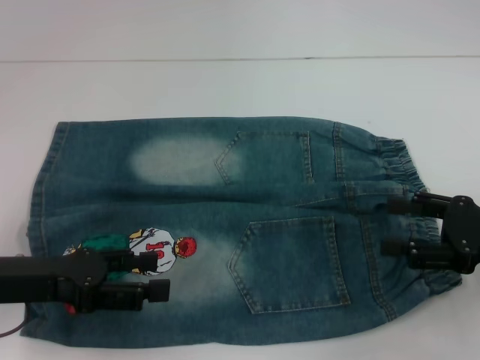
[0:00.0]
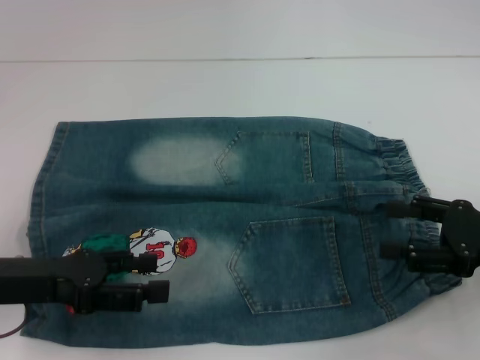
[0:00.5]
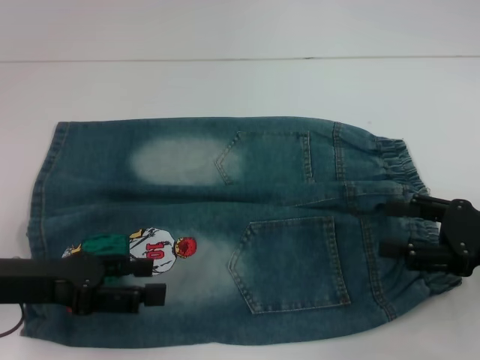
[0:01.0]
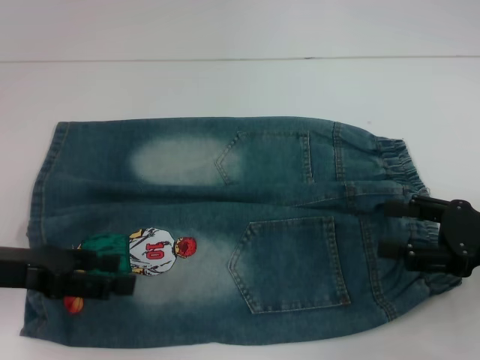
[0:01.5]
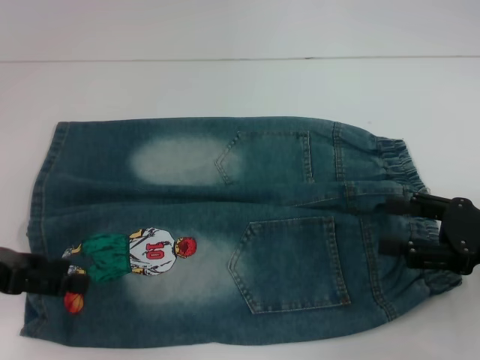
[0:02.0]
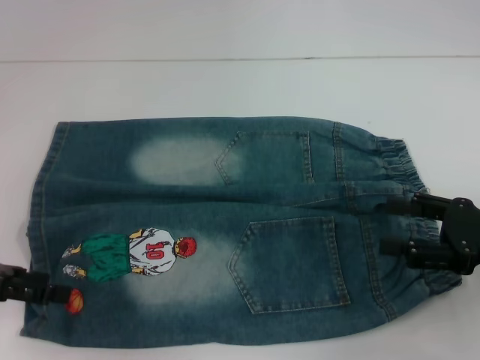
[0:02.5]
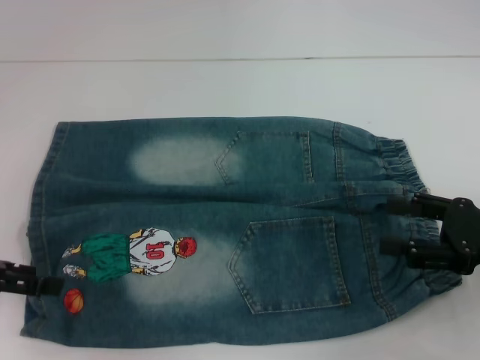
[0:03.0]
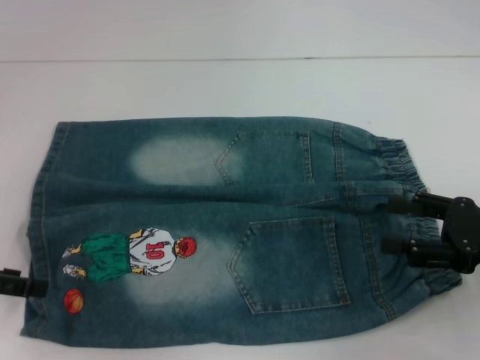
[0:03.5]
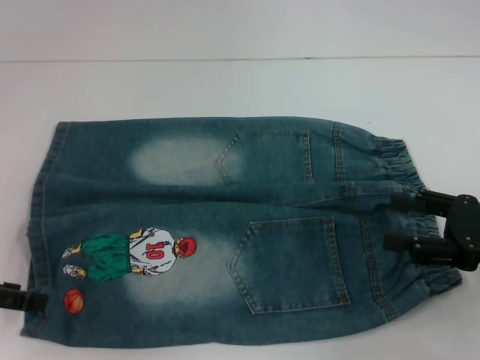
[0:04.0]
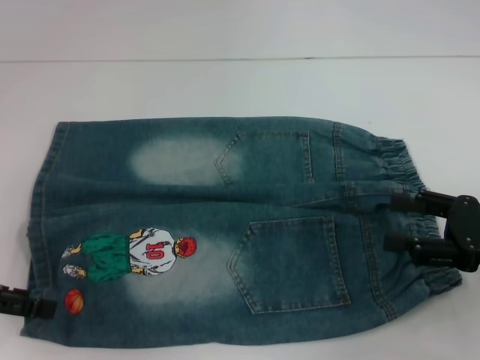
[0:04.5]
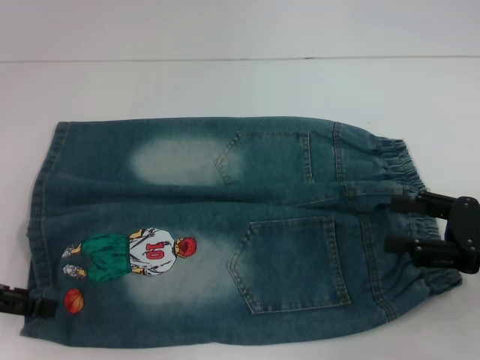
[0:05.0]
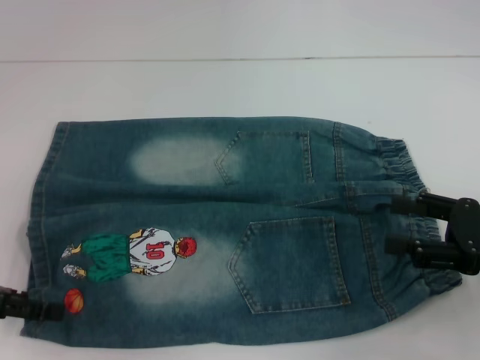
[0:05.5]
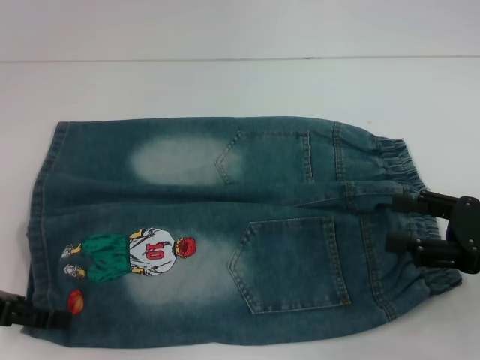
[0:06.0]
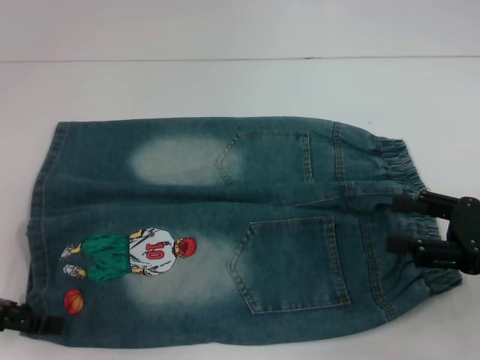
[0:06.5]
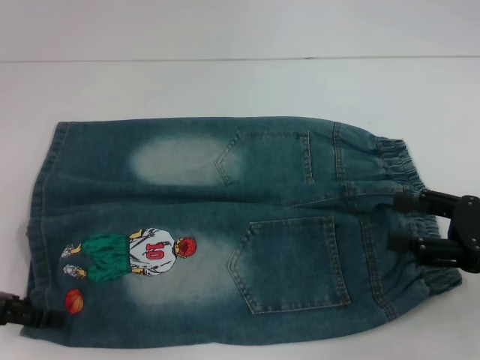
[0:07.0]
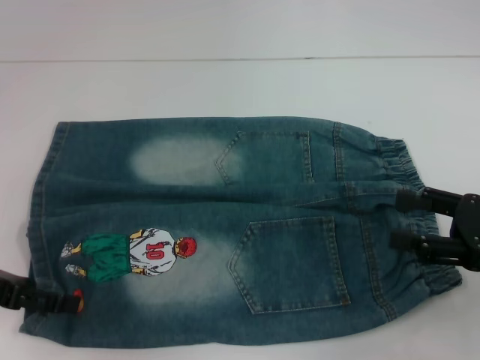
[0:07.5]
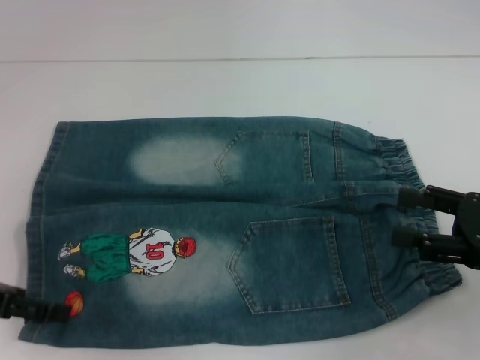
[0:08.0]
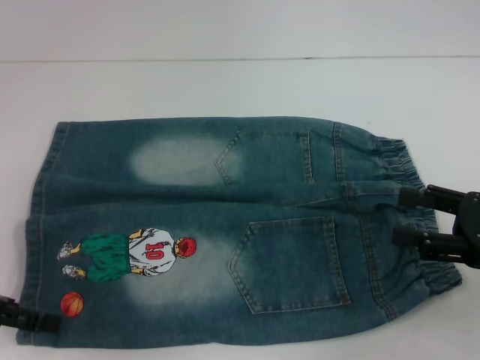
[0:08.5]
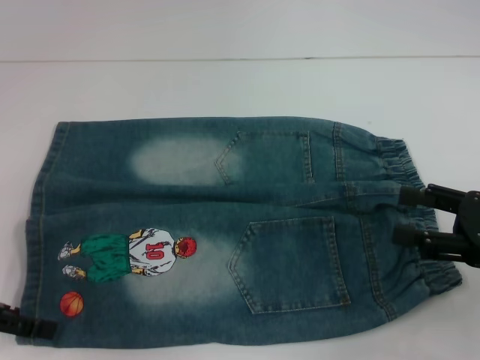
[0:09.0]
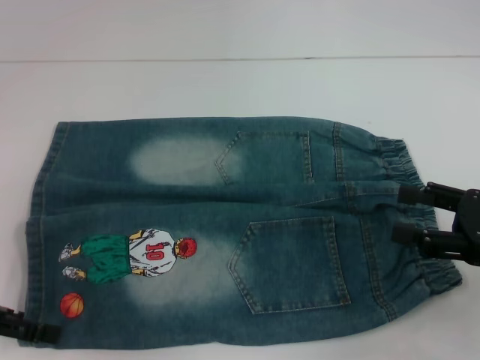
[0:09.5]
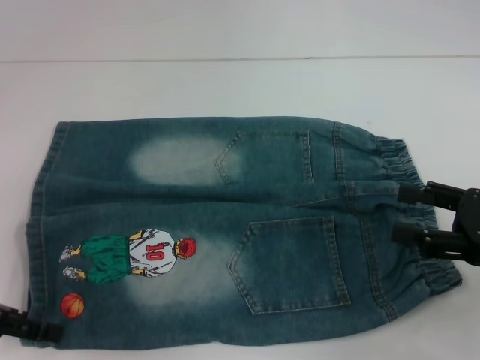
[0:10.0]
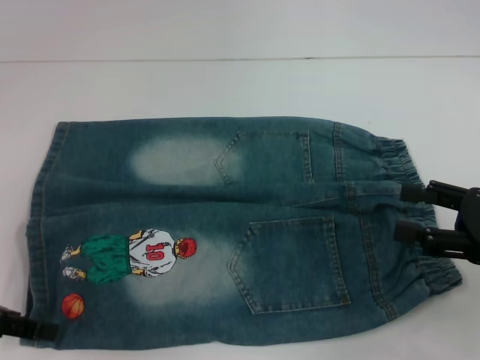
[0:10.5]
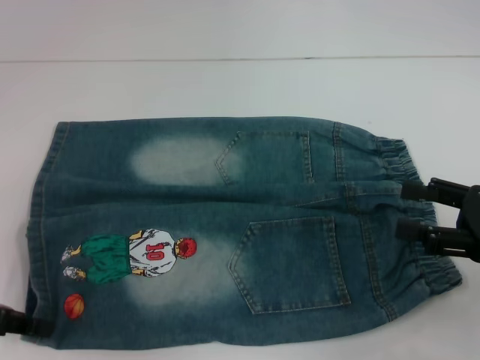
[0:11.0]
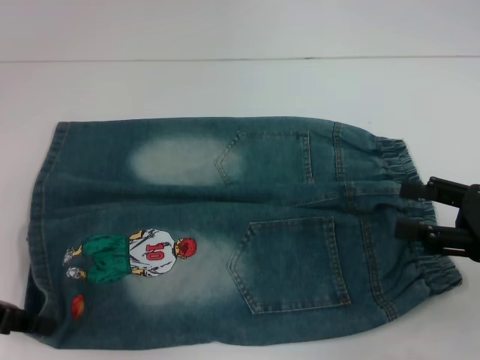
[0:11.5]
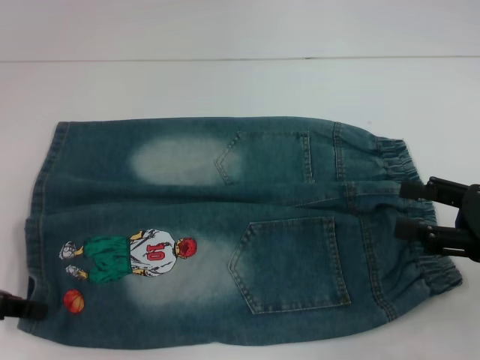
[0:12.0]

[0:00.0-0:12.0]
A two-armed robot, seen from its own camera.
Step, 0:00.0 to 0:10.5: Grab the lower left pant leg with your left hand.
0:00.0 to 0:02.0: The left gripper goes about 5 cm to the left.
0:02.0 to 0:08.0: The grippers make only small movements.
0:08.0 to 0:10.0: The two grippers keep their place.
0:10.0 to 0:12.0: The left gripper closes.

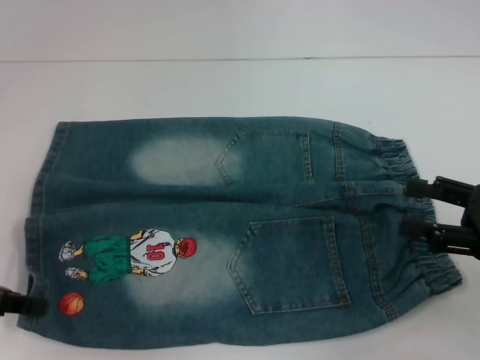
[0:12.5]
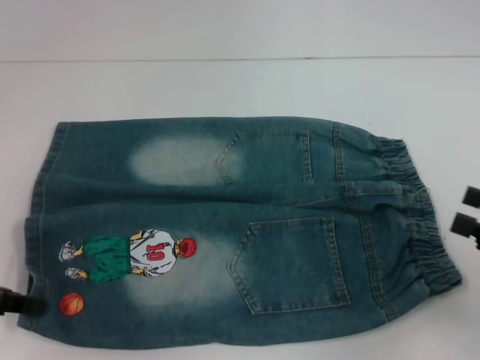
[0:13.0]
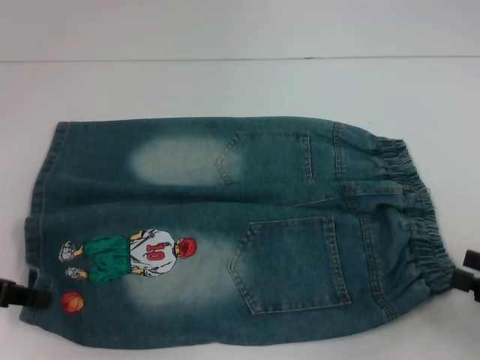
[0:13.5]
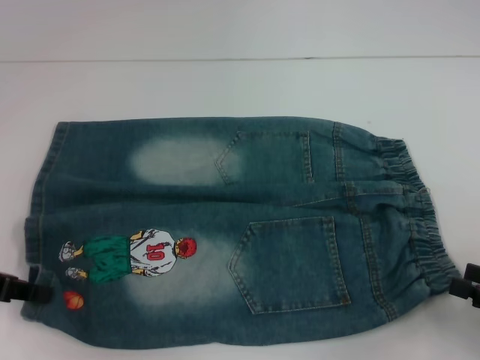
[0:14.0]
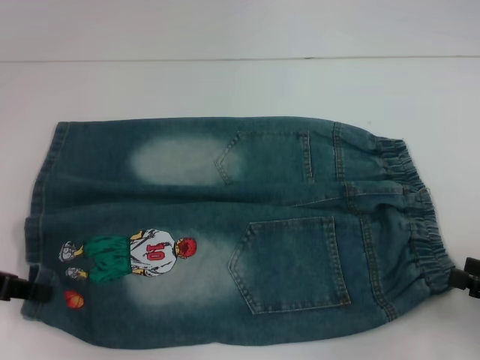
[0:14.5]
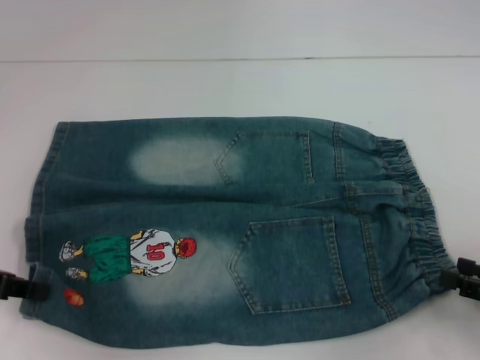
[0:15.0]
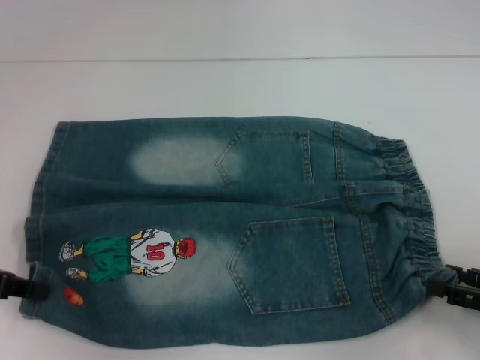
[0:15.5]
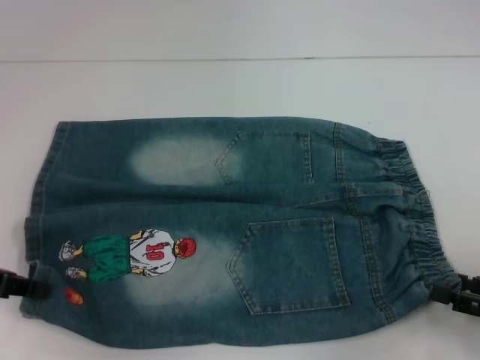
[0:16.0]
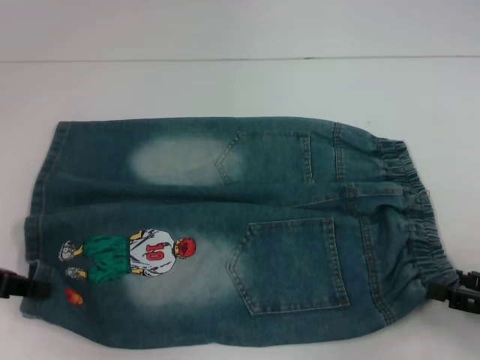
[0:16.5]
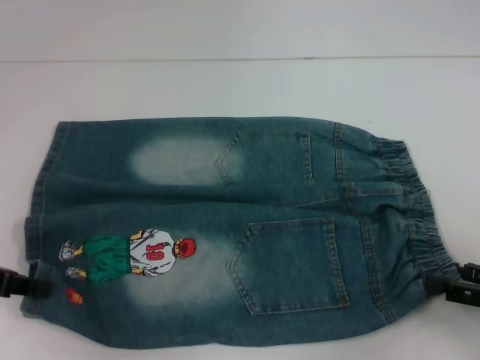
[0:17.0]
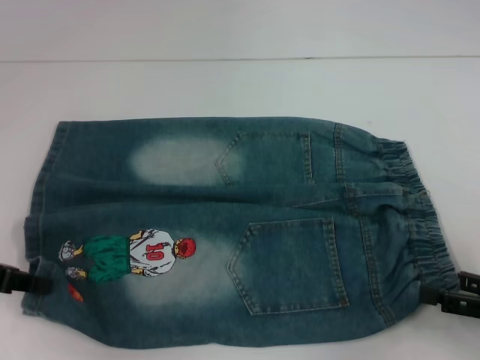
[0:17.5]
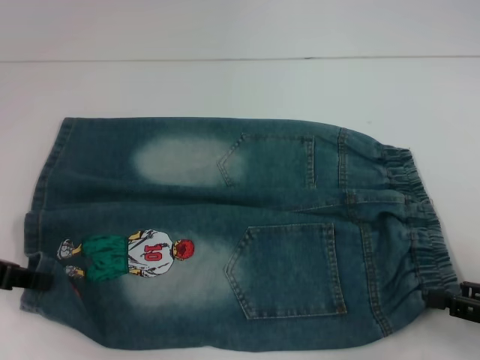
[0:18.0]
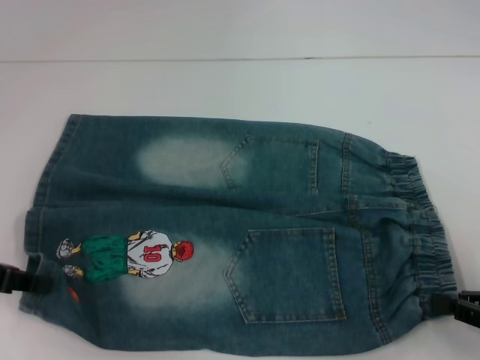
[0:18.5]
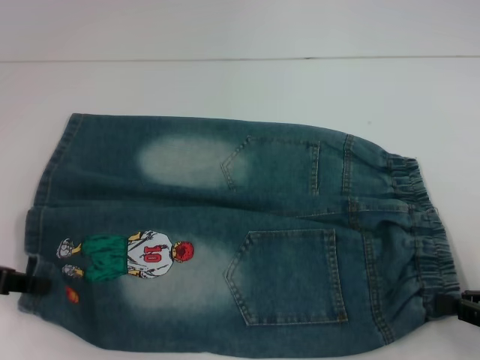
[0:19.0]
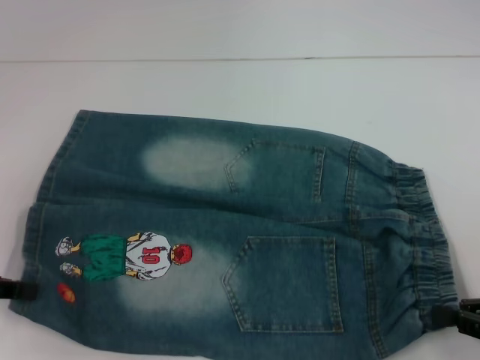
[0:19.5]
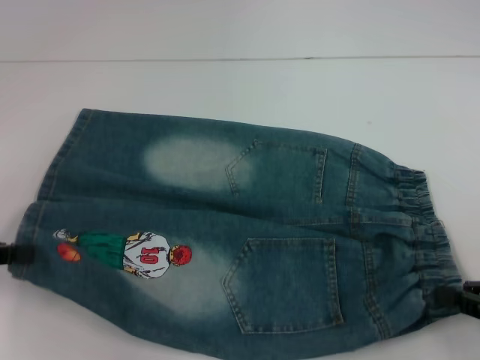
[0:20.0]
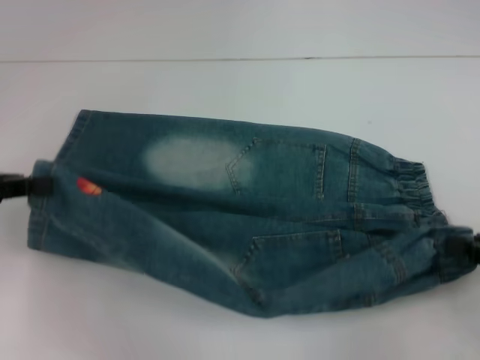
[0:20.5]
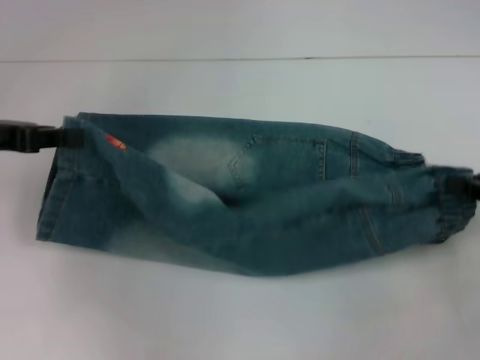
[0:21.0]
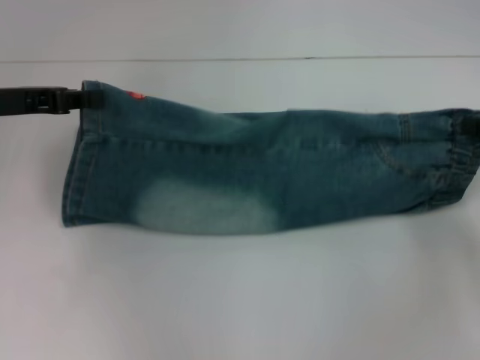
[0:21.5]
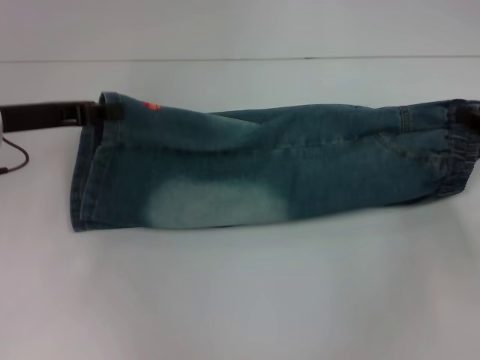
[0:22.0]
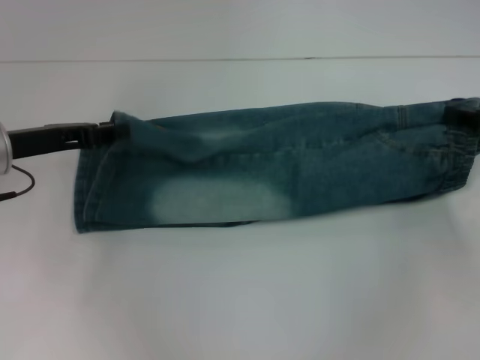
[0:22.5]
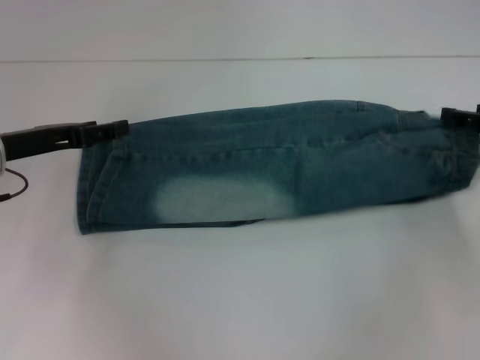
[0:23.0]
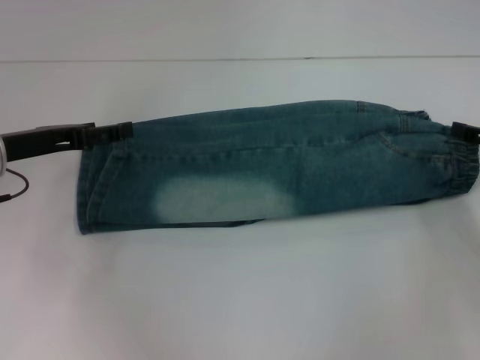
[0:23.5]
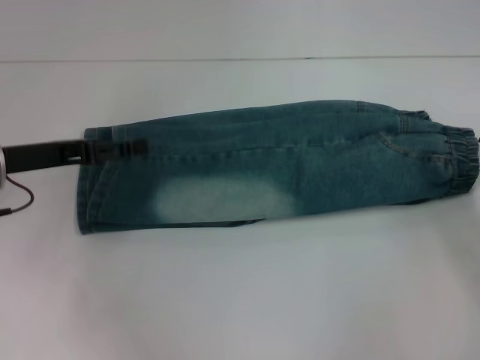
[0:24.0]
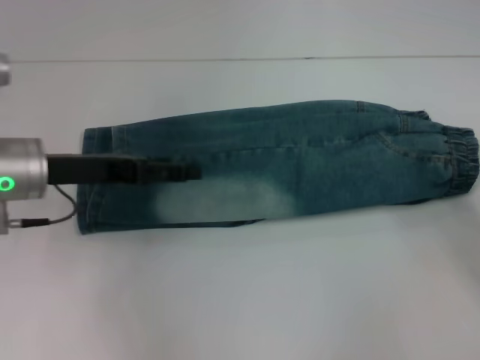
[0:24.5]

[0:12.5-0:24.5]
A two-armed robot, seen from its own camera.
Step, 0:12.5 to 0:18.0: Hold the lower right waistband with your right hand.
Step, 0:18.5 to 0:23.0: Fold upward with your right hand.
0:12.5 to 0:14.5: The right gripper heads backward and downward, covering approximately 10 cm.
0:14.5 to 0:16.5: The grippers stay close to where they were, moving slightly.
0:16.5 to 0:18.5: The right gripper closes its fingers.
0:20.5 to 0:22.5: The left gripper moves to the right and forward, some 10 cm, while the right gripper shifts roughly 15 cm forward.
0:22.5 to 0:24.5: The right gripper travels backward by roughly 10 cm, and opens. Meanwhile the left gripper opens its fingers.

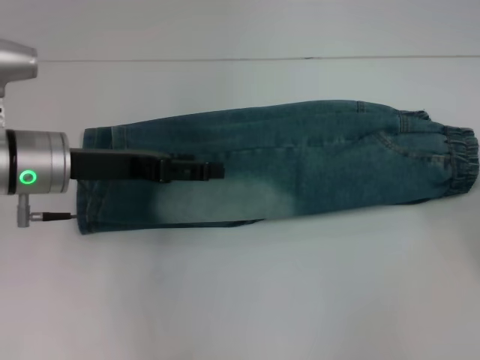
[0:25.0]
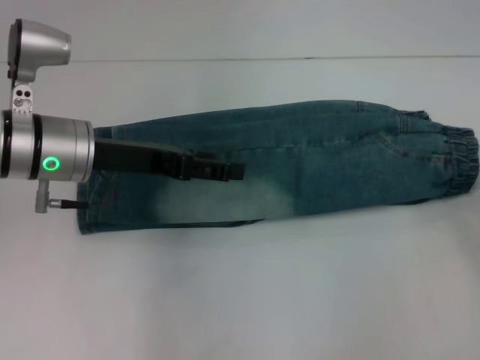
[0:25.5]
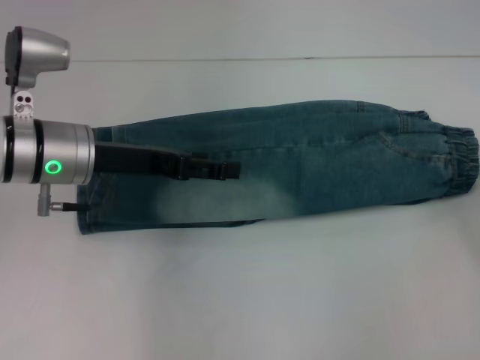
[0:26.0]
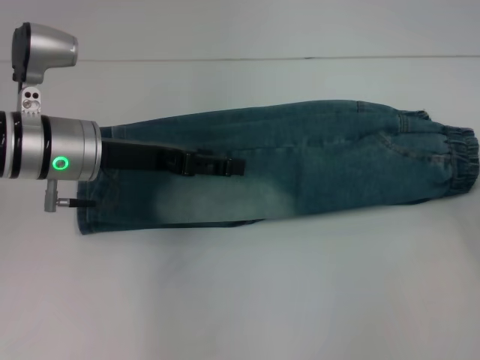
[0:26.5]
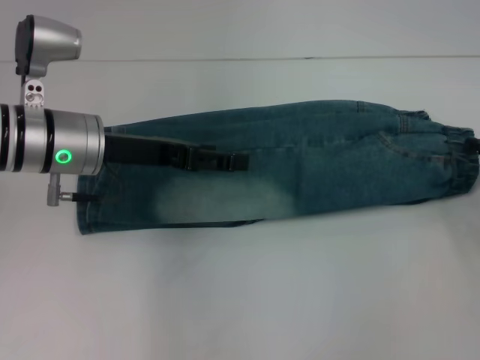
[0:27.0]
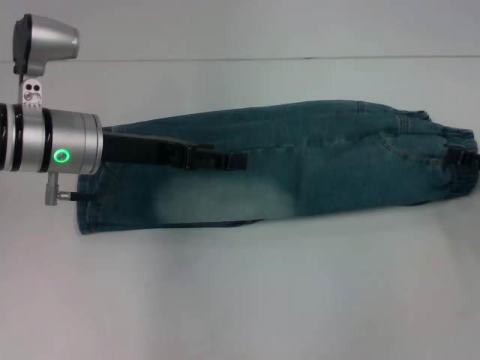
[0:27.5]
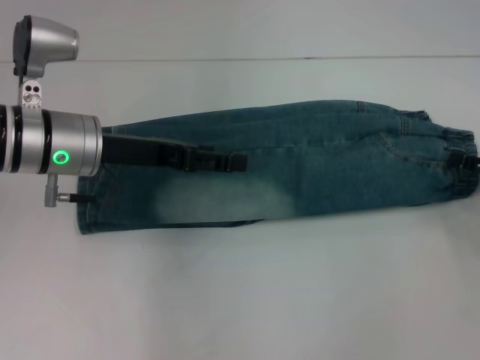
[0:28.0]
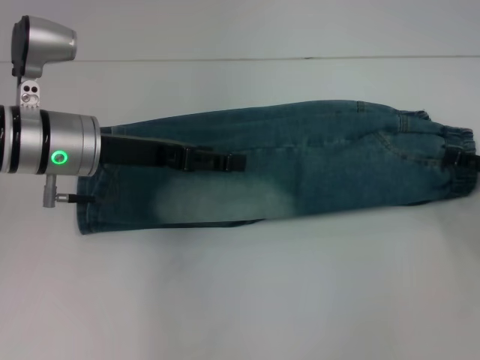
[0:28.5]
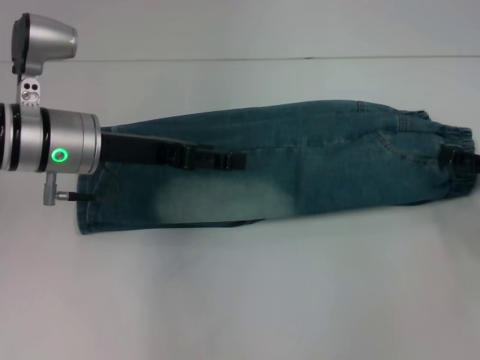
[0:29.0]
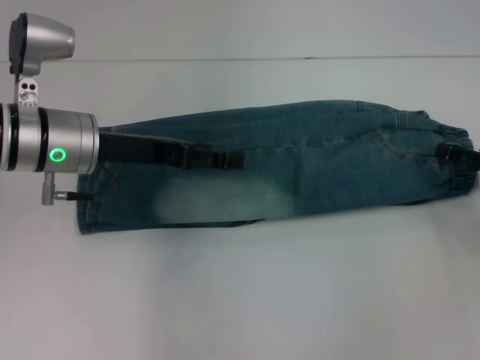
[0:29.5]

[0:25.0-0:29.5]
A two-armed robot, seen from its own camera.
Step, 0:25.0 to 0:27.0: Grab the waistband with your right hand.
0:25.0 to 0:27.0: The right gripper shifts by some 5 cm.
0:27.0 to 0:29.5: The grippers move only a little.
